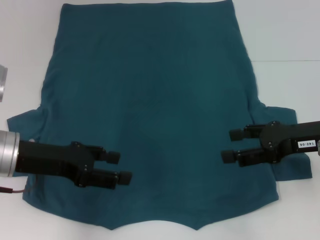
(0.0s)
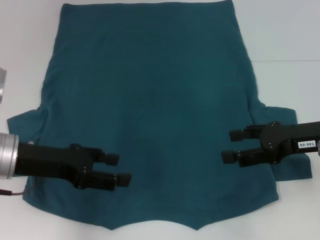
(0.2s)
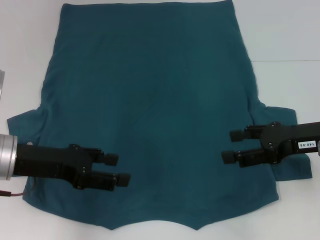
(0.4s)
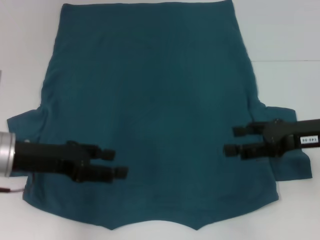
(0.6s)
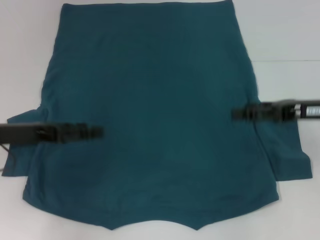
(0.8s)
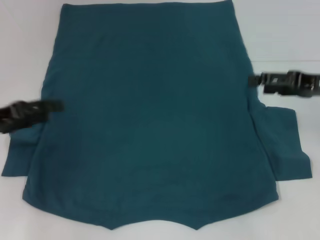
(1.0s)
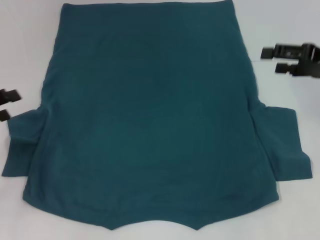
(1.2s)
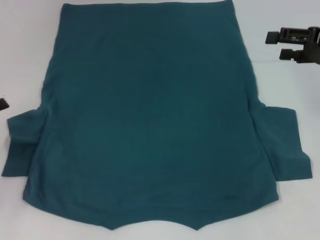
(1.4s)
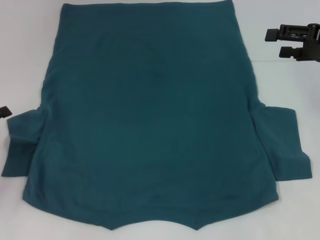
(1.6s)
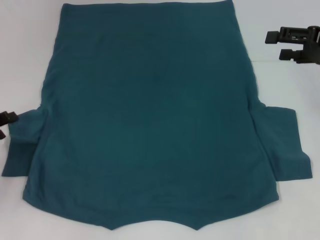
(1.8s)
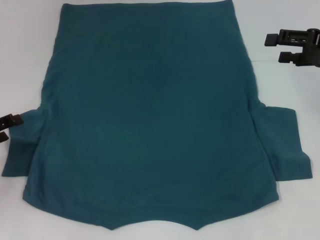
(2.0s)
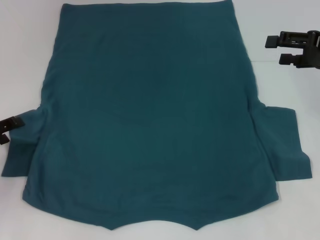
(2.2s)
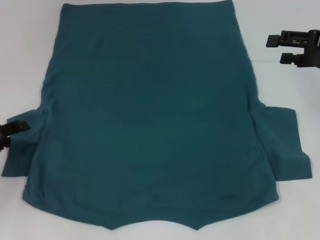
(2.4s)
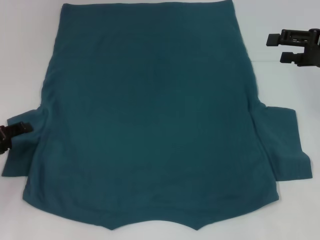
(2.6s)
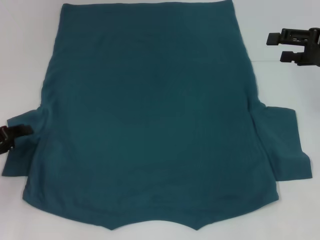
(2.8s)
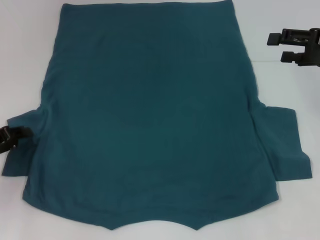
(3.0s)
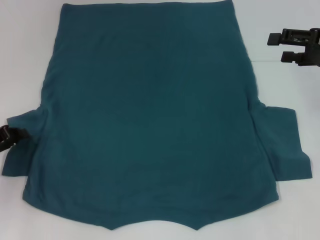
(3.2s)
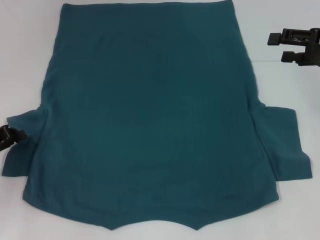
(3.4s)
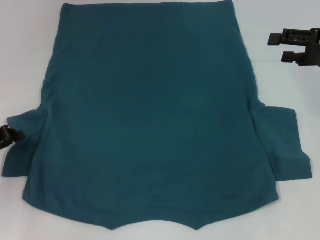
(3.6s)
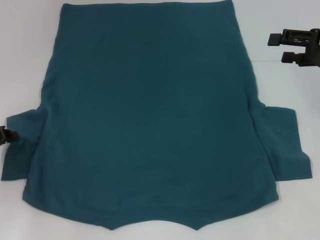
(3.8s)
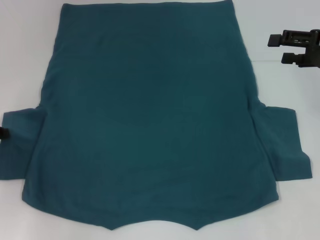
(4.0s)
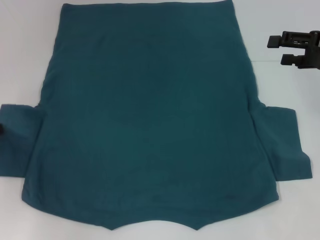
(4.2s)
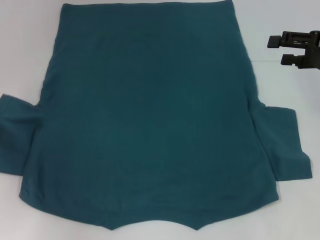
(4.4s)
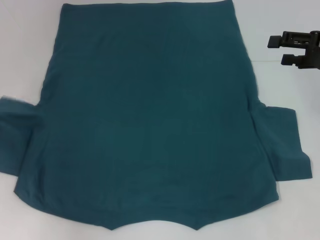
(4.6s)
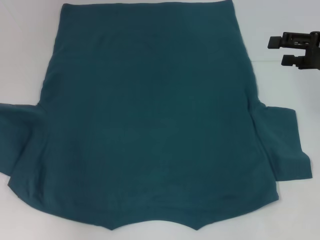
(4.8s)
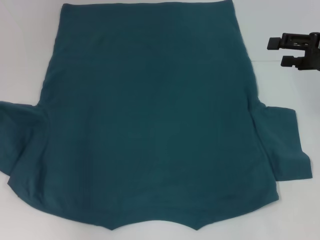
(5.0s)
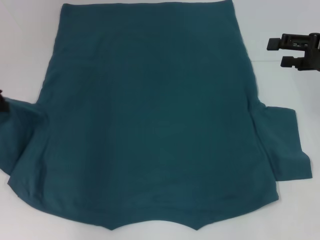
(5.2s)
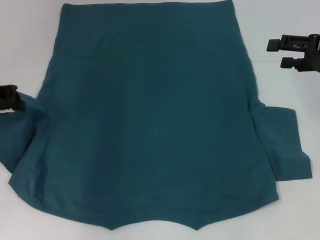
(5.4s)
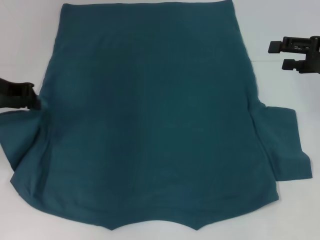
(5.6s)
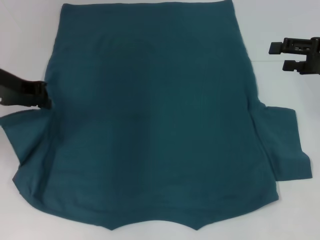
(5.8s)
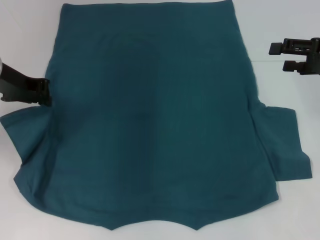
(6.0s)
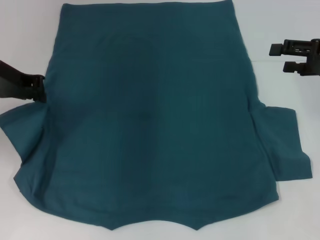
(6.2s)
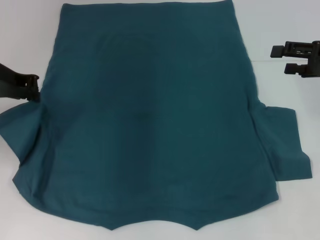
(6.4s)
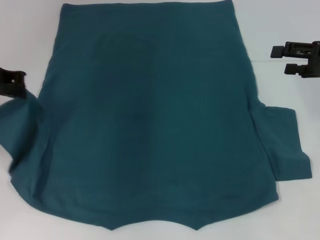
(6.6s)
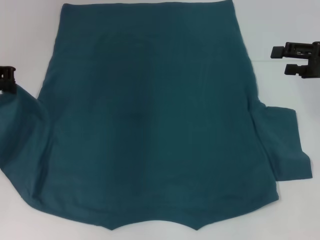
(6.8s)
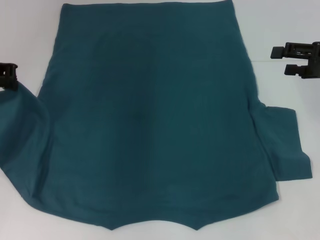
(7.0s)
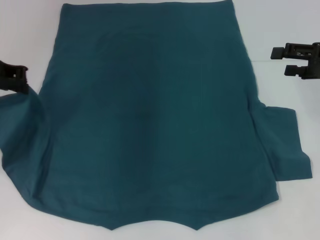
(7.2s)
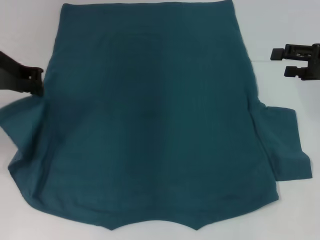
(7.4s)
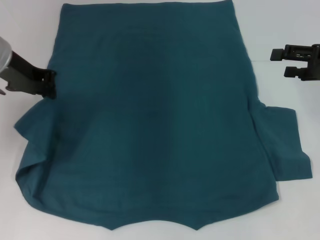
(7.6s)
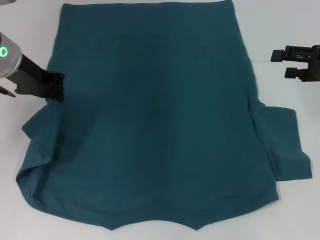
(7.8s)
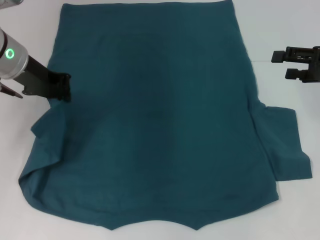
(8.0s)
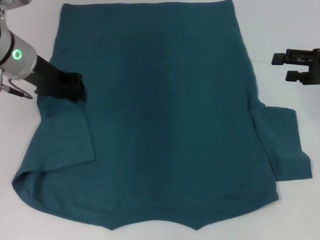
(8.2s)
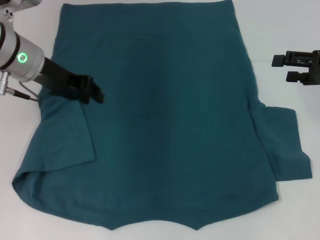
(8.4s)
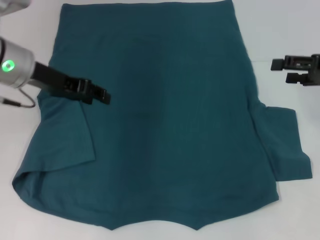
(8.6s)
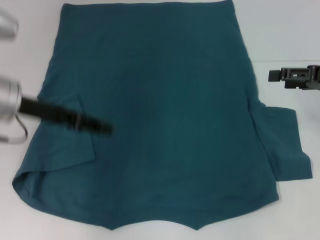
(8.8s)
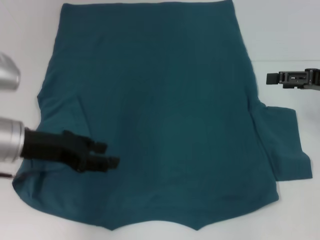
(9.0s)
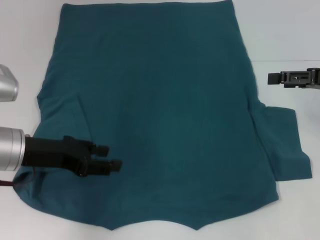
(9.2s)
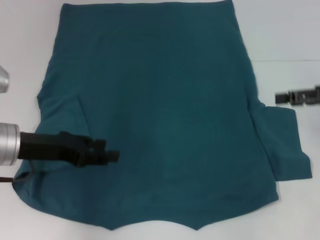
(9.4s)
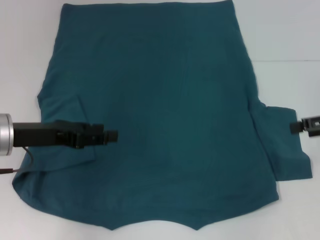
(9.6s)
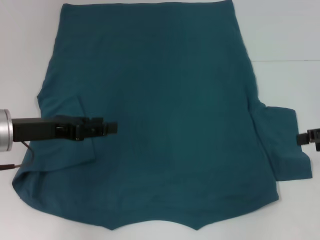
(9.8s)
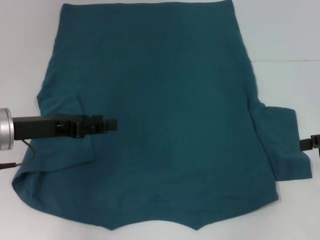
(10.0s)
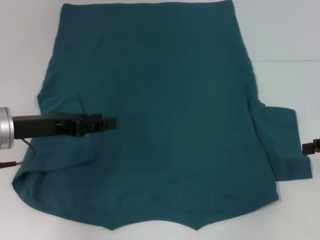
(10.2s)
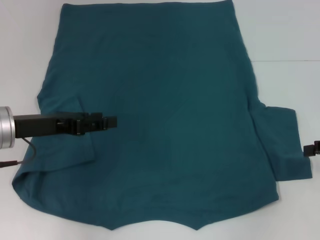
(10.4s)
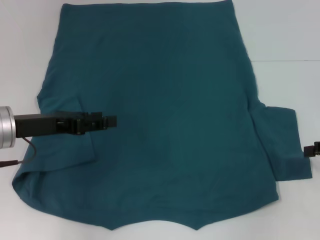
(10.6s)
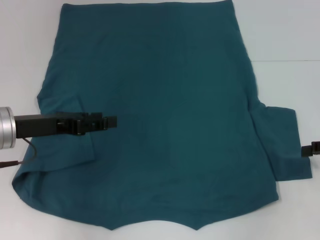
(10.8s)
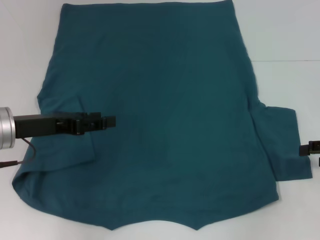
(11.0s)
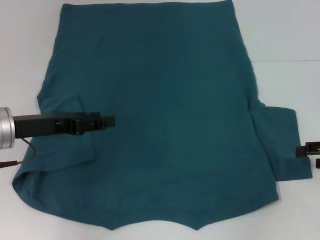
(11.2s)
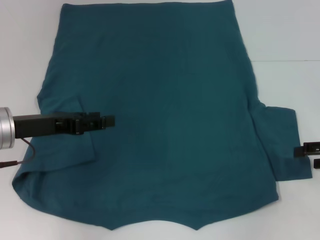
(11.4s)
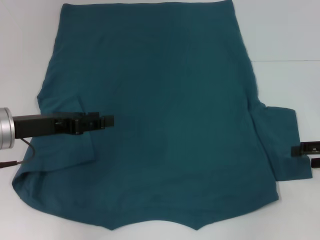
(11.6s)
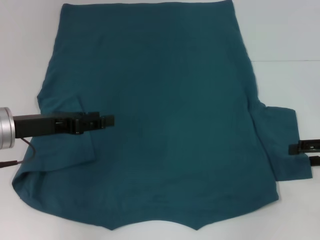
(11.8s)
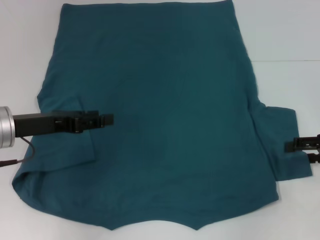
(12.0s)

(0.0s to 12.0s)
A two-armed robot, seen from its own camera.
Step, 0.0s - 8.2s: Fold the bottom left sleeve with your left hand.
0.0s - 1.6s: The left gripper shifts about 15 cm to the left. Meanwhile the right gripper moves forward, upward and to the right, approximately 10 cm.
1.6s - 3.0s: The grippers move only a little.
3.0s - 4.4s: The left gripper goes roughly 5 cm upward, and closes up.
4.4s - 6.0s: The left gripper heads to the right, upward and forward, covering roughly 15 cm.
6.0s - 7.6s: The grippers make only small movements.
7.6s - 9.0s: The left gripper goes roughly 15 cm backward and downward, and opens its fingers.
9.0s - 10.4s: The right gripper is displaced backward and to the right by approximately 10 cm.
10.4s - 12.0s: The grippers stay close to where they were, moving slightly.

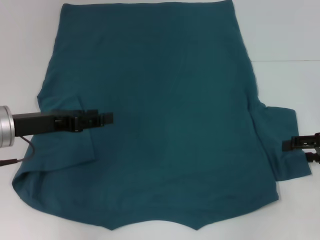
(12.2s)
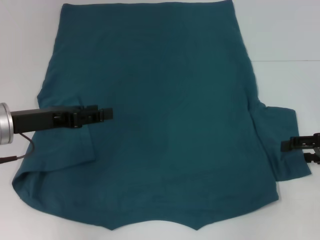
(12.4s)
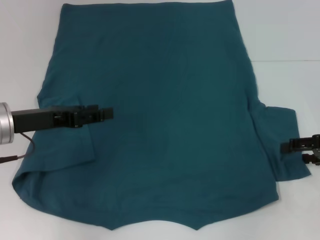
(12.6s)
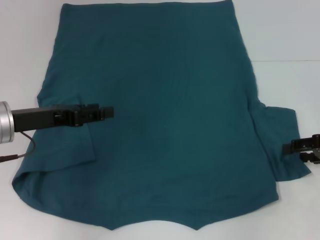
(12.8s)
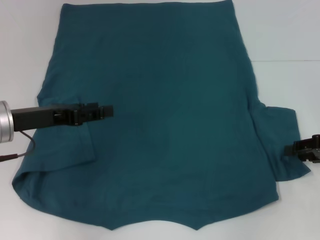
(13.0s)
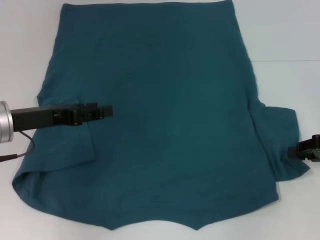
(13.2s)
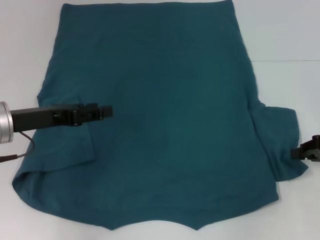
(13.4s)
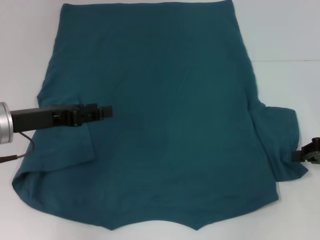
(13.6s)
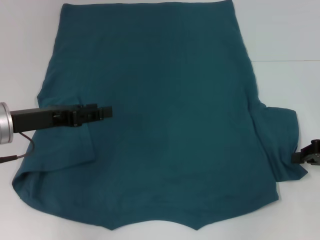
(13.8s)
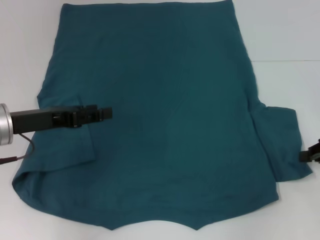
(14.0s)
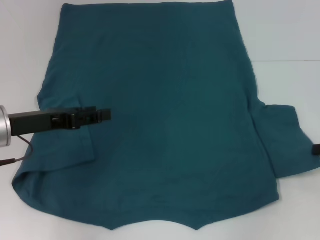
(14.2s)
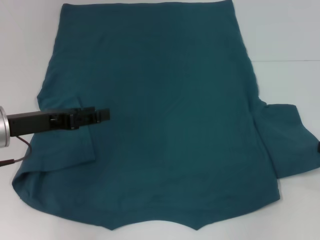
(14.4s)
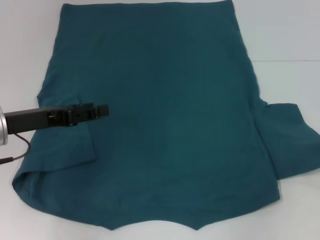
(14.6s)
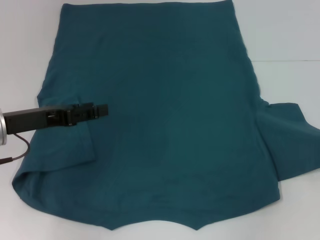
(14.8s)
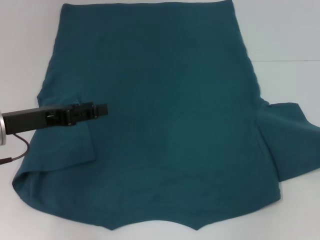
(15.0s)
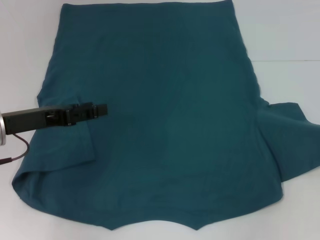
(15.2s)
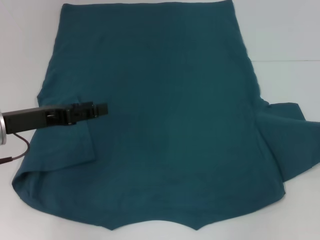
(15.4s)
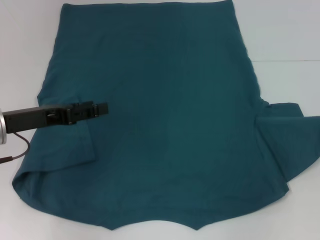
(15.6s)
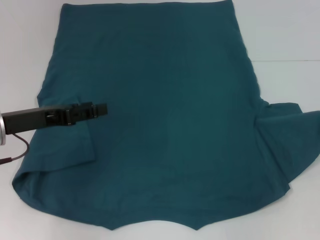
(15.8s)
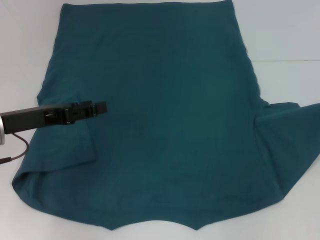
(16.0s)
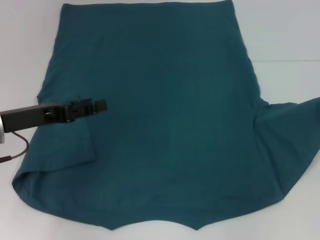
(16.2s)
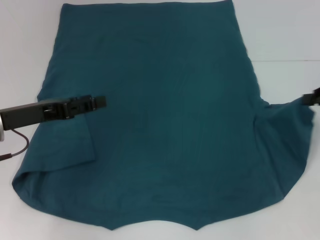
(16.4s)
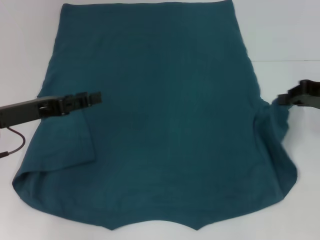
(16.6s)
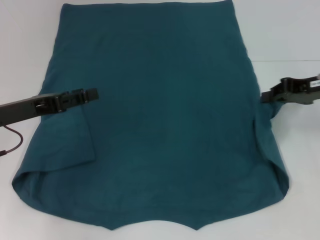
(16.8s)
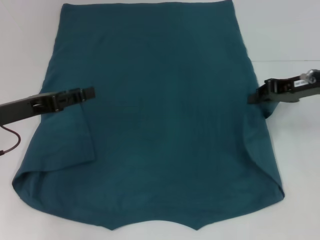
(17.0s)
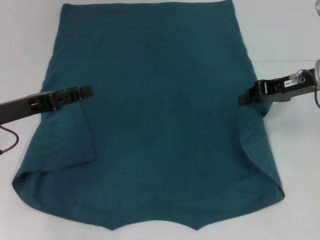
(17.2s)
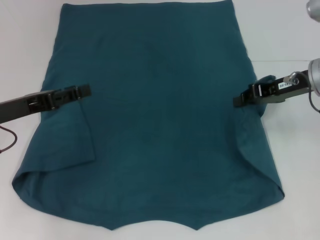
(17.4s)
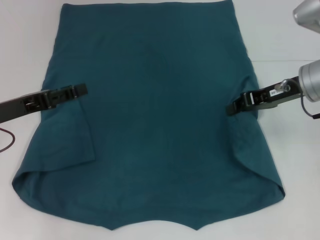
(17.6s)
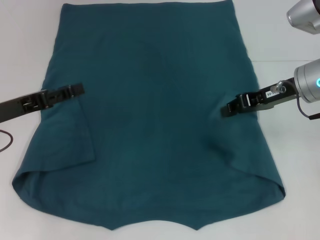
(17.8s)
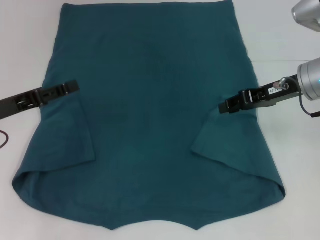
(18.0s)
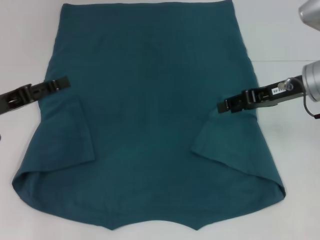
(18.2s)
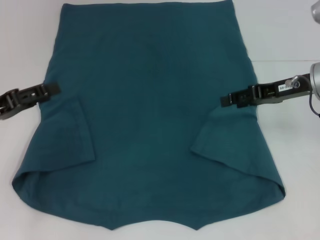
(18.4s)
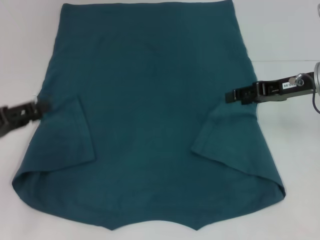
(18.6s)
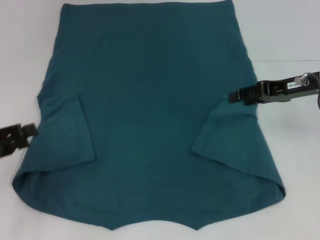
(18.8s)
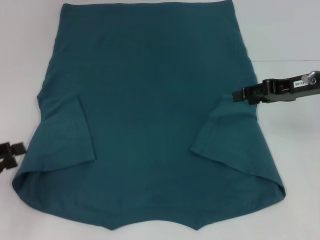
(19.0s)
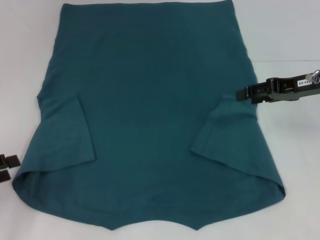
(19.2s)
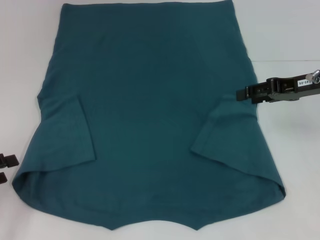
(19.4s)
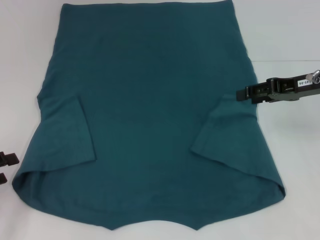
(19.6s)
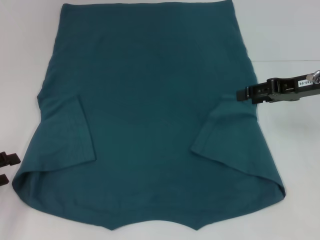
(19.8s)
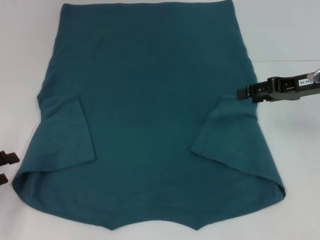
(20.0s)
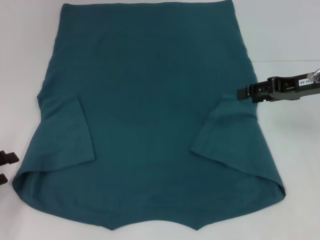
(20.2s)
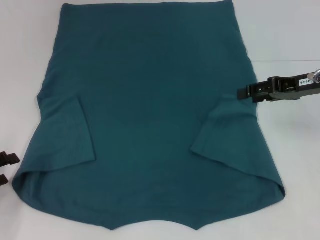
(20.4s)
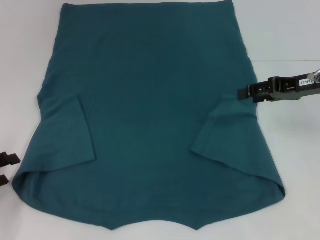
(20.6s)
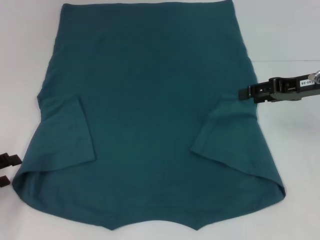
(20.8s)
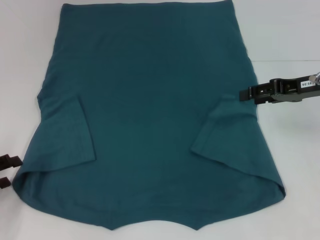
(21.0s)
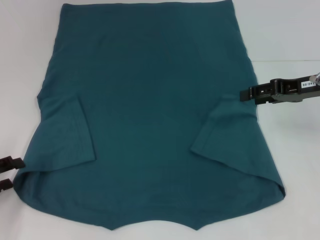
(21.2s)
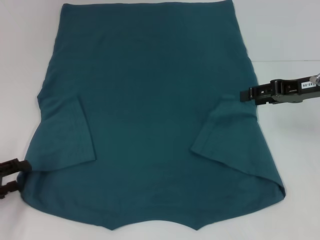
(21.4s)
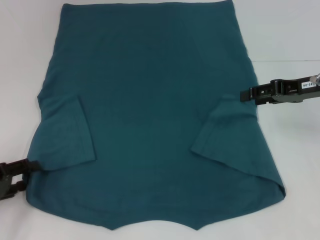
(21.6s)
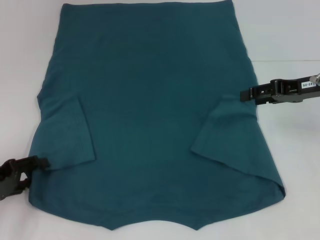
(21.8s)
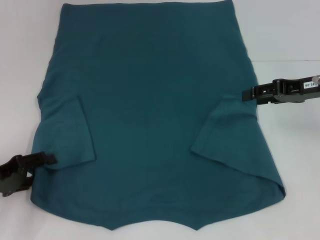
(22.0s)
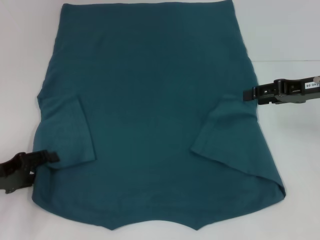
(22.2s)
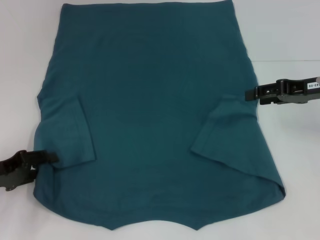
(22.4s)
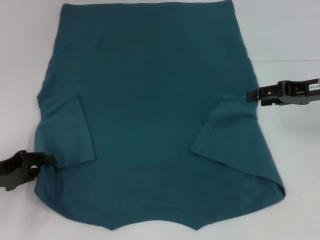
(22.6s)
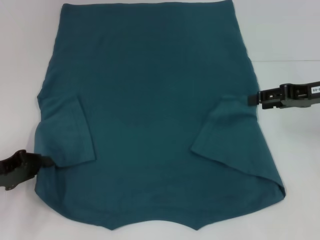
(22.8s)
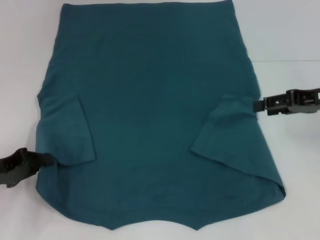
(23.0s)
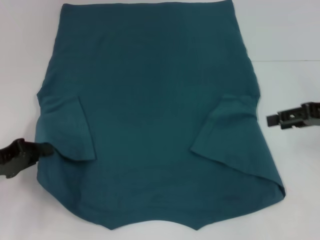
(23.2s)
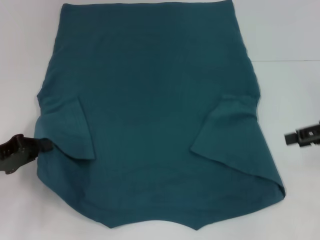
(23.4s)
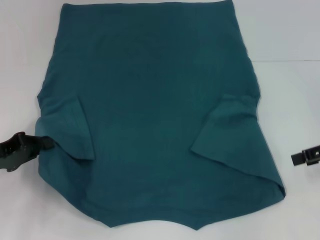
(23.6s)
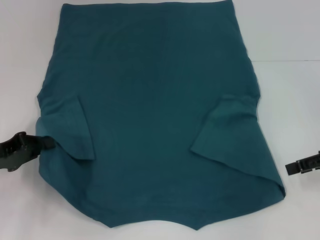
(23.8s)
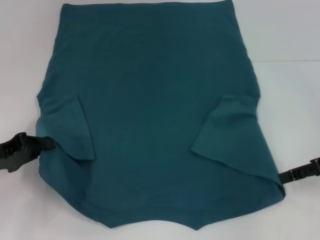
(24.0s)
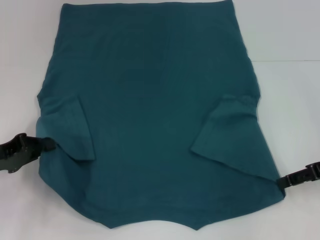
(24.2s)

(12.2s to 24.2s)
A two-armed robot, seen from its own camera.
Step, 12.2s - 18.0s: Fold the bottom right sleeve to the right.
Step, 18.2s - 23.0s: Grab the bottom left corner with your left hand.
12.2s - 13.8s: The right gripper closes up.
13.8s - 15.2s: The right gripper moves to the right, about 5 cm.
15.2s - 16.6s: The right gripper moves to the left and forward, roughly 10 cm.
16.6s - 18.2s: The right gripper shifts roughly 10 cm to the left, and opens.
18.2s - 19.8s: The left gripper shifts approximately 10 cm backward, to the left and downward.
19.8s - 21.2s: The grippers move only a little.
21.2s - 22.6s: The left gripper ends up roughly 5 cm from where it was.
22.6s - 24.2s: The right gripper goes some 5 cm backward, while the left gripper closes.
